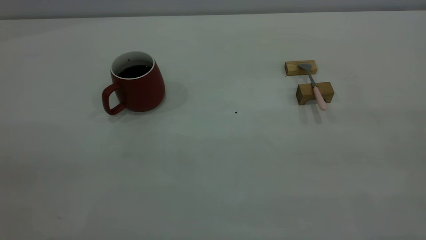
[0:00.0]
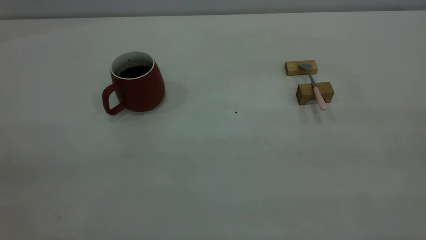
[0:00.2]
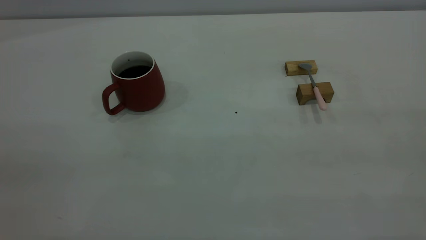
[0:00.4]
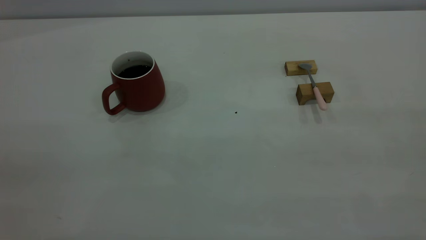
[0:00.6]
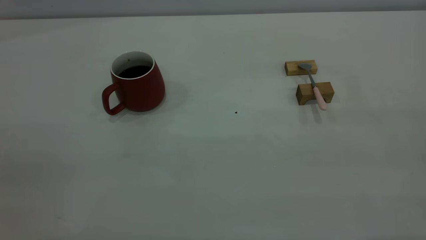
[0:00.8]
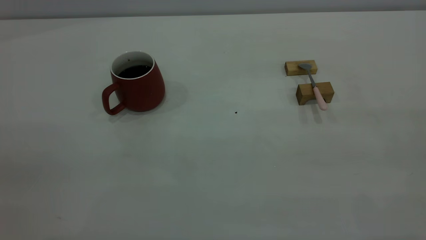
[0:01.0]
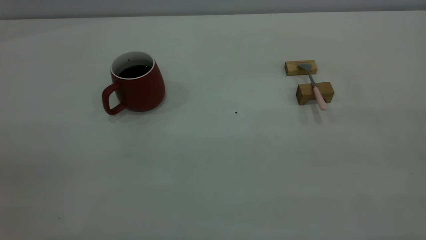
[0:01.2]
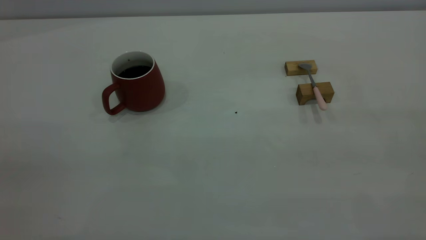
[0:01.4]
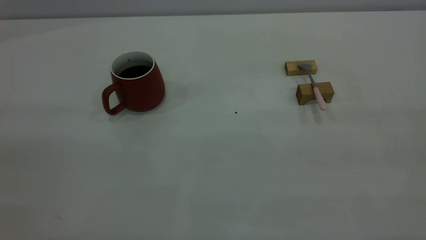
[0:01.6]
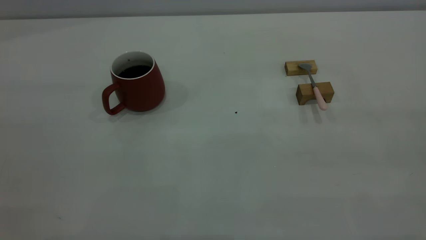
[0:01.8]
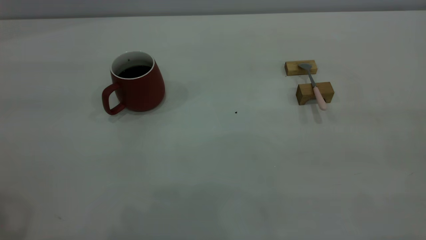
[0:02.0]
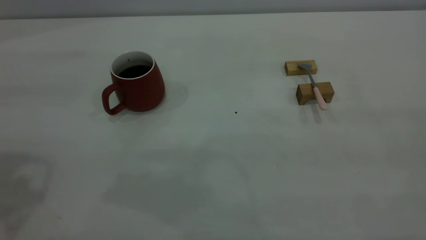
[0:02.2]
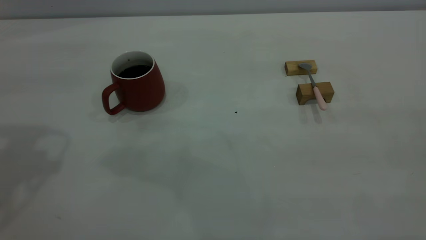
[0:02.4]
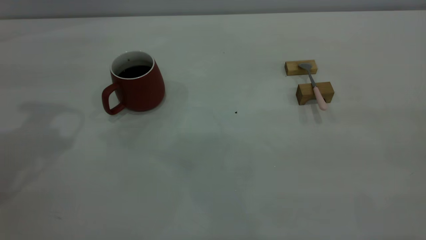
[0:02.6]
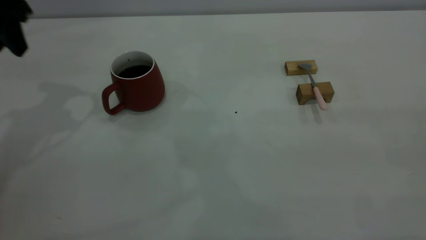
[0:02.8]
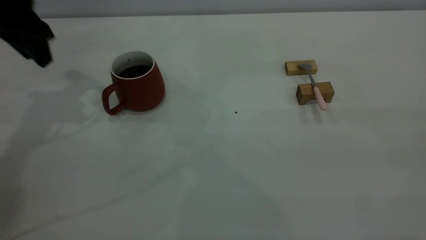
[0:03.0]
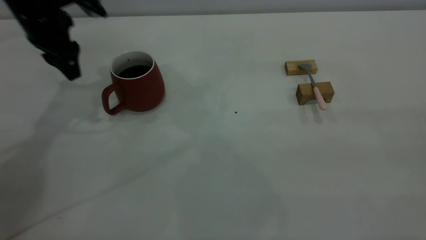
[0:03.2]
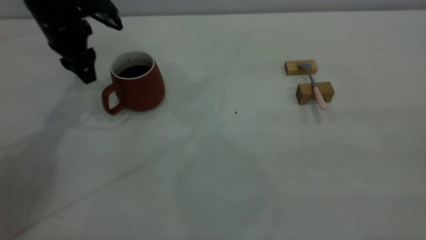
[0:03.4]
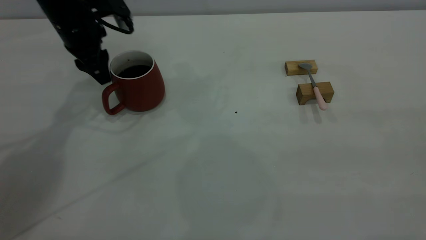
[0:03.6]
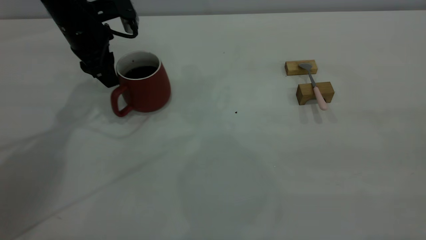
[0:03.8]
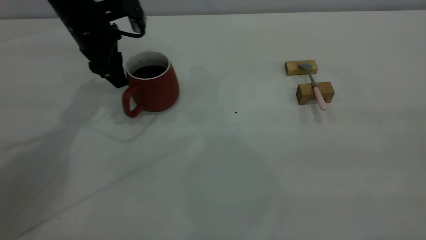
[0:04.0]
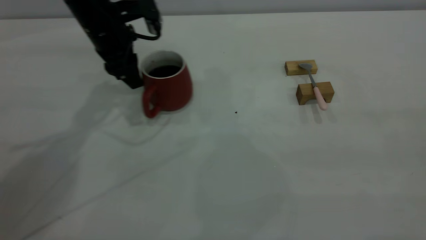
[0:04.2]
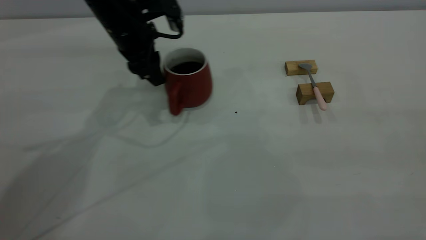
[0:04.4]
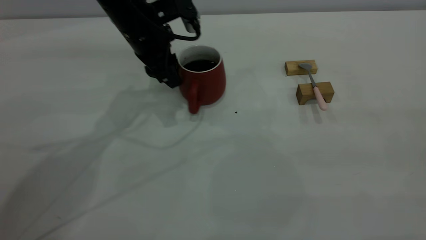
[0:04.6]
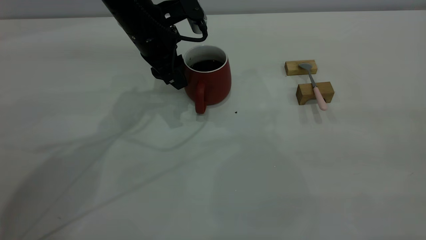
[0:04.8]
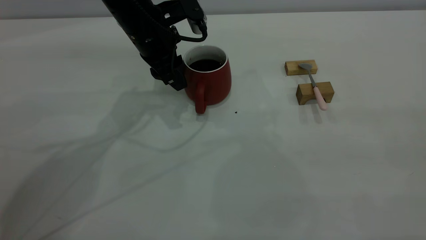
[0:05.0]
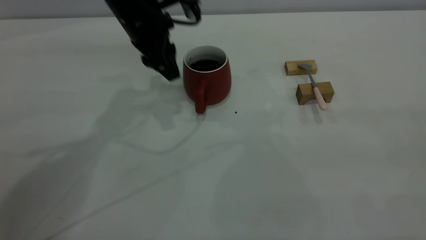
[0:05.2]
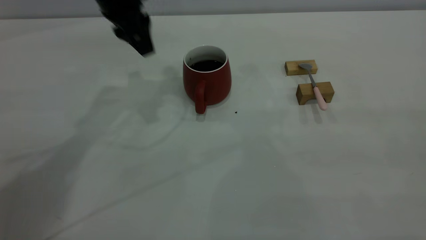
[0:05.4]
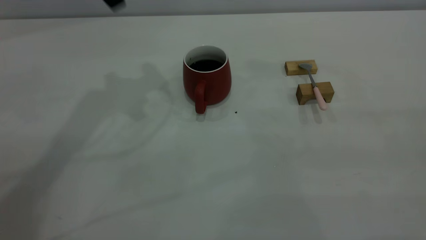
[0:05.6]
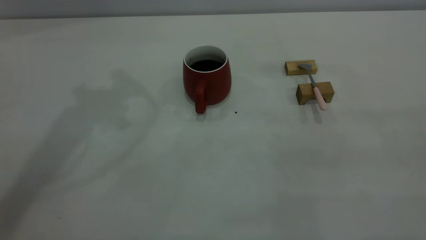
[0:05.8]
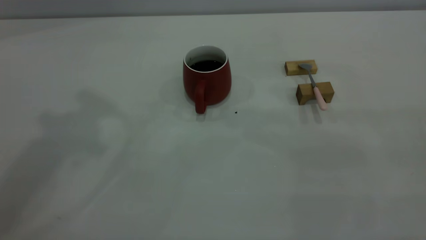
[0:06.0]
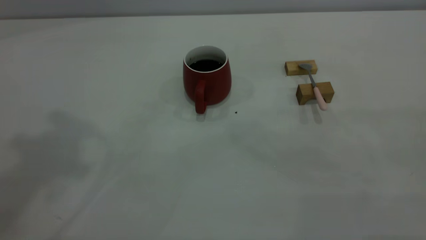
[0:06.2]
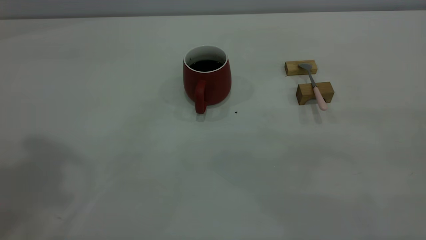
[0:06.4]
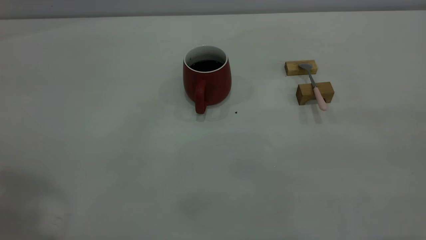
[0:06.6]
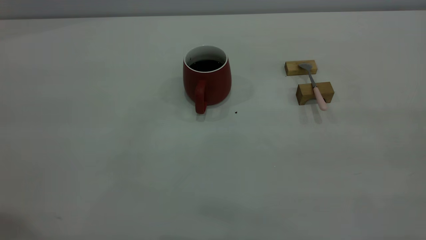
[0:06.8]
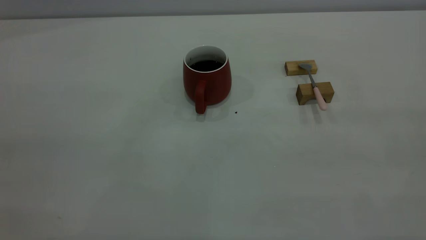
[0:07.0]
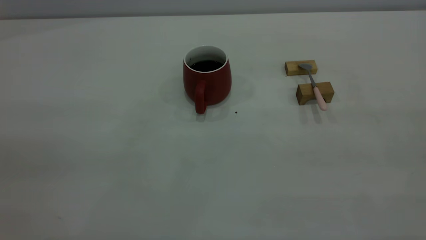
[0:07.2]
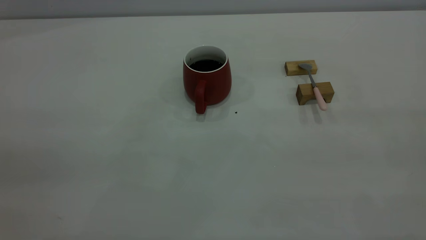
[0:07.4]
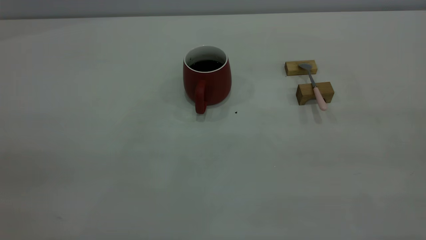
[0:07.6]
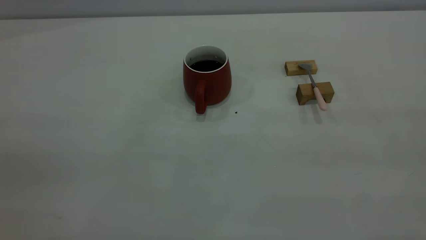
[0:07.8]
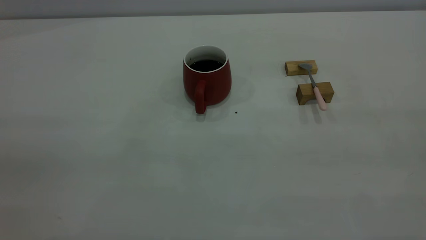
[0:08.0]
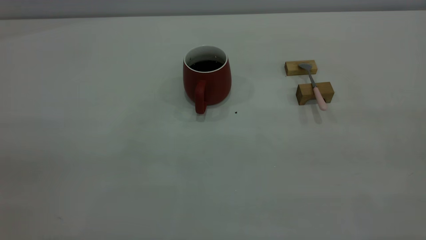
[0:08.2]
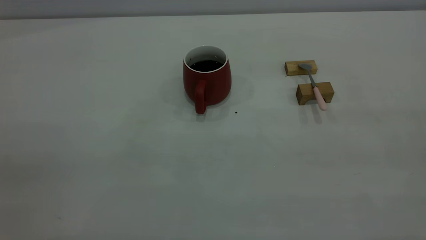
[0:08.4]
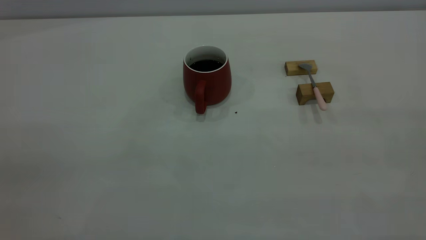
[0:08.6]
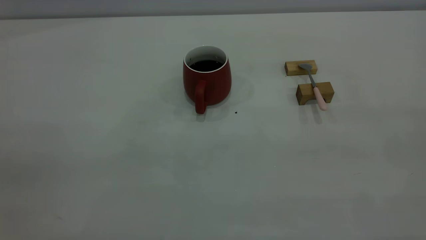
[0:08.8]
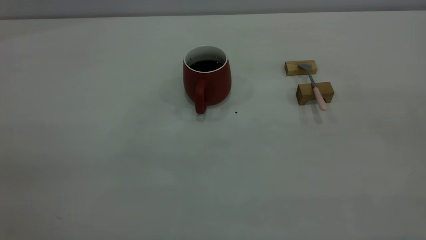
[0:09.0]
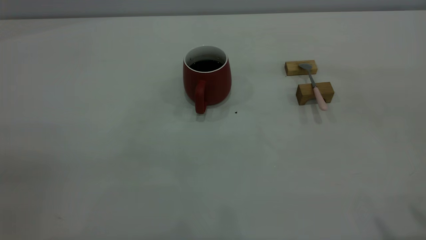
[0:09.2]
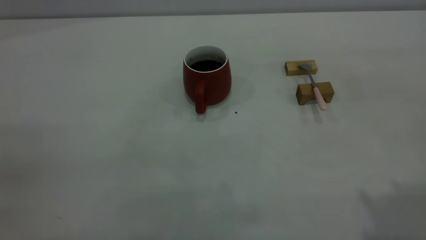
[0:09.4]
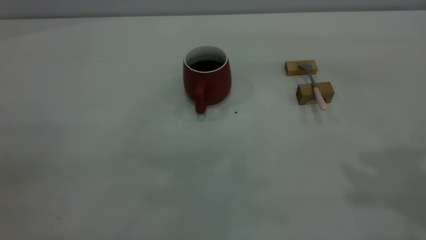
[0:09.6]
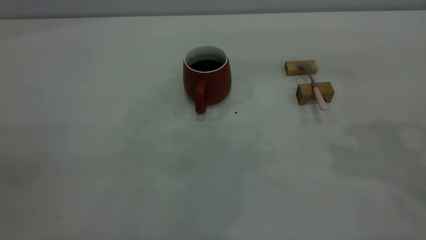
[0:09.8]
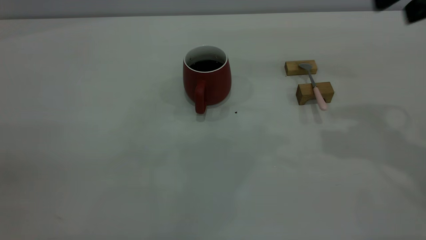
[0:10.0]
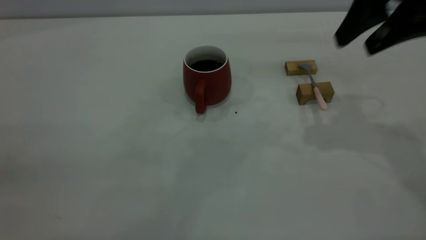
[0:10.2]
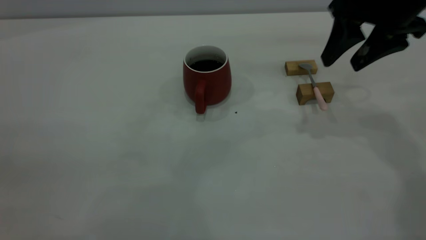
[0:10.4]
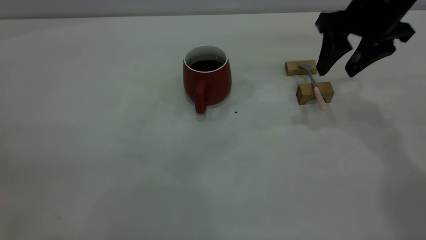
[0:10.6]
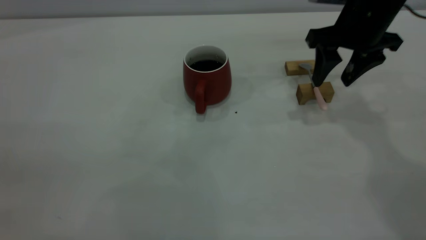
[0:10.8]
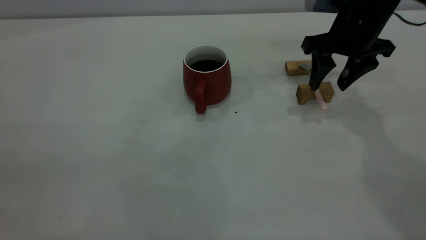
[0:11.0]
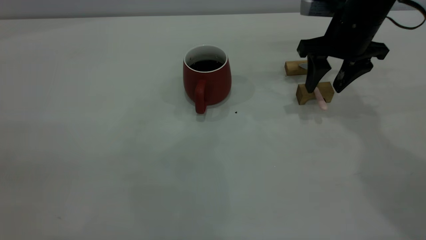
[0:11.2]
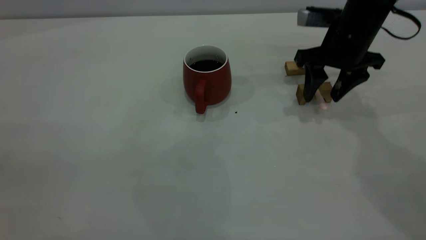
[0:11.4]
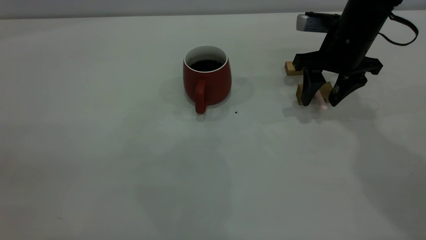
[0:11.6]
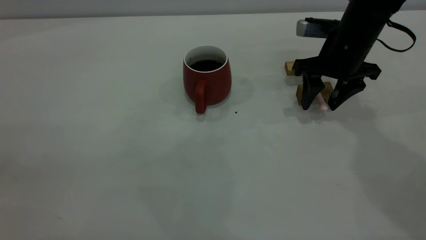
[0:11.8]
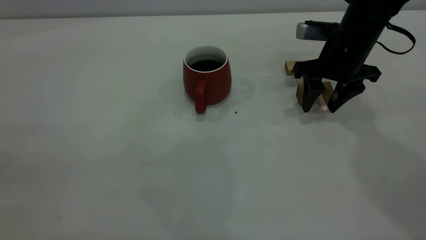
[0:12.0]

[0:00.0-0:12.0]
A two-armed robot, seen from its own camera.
Step, 0:00.0 to 0:05.2: Move the cup with coffee to the center of view.
0:01.6 to 0:03.0: The left gripper shifts about 40 cm forward and downward.
0:03.0 to 0:04.4: The left gripper goes some 15 cm to the right.
0:04.4 to 0:06.0: The left gripper goes some 35 cm upward and backward.
0:09.0 to 0:10.4: The right gripper goes some 35 cm forward and downward.
0:10.4 to 0:12.0: The right gripper goes about 10 cm downward.

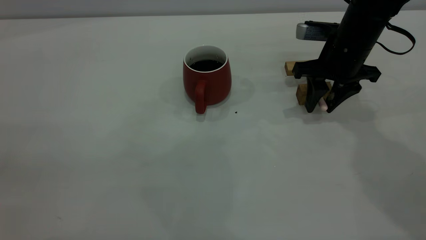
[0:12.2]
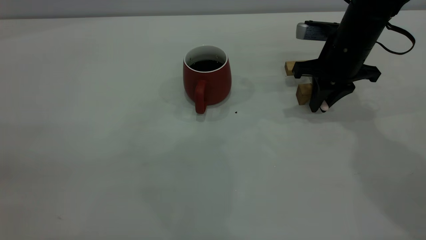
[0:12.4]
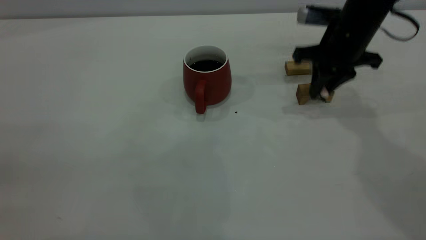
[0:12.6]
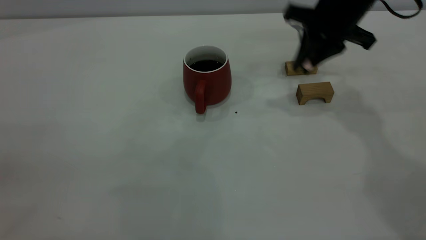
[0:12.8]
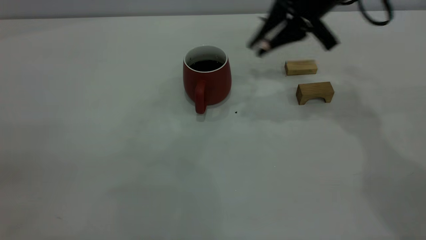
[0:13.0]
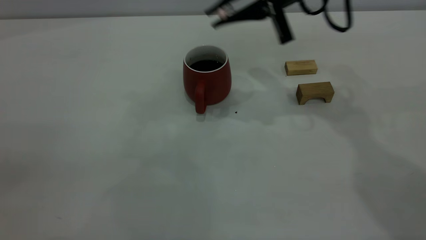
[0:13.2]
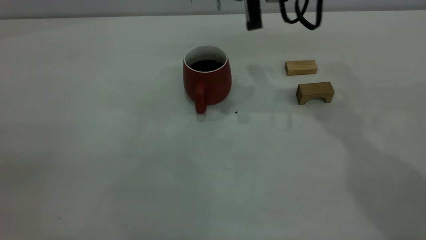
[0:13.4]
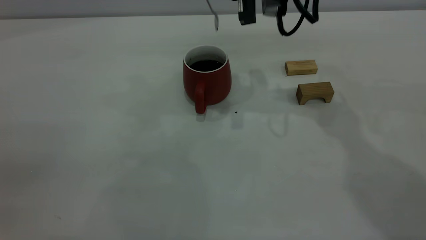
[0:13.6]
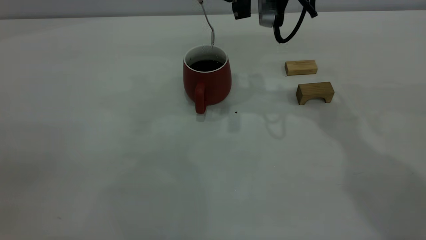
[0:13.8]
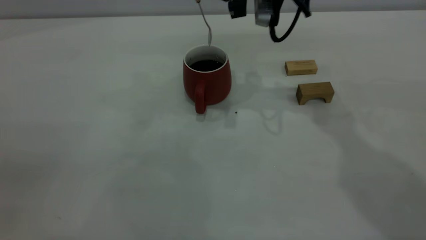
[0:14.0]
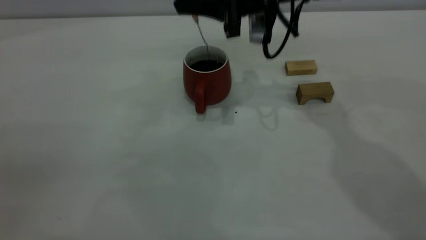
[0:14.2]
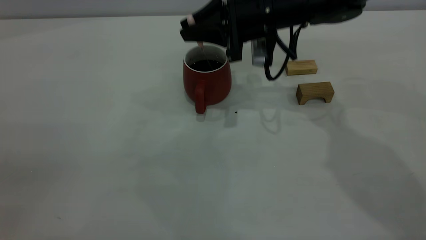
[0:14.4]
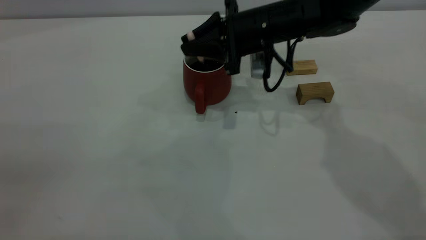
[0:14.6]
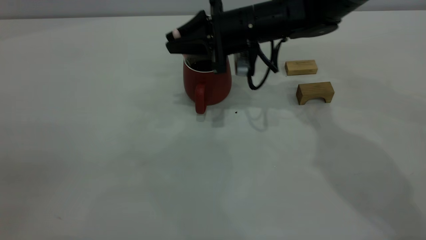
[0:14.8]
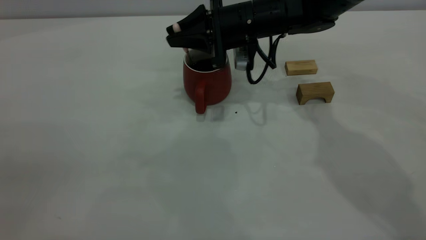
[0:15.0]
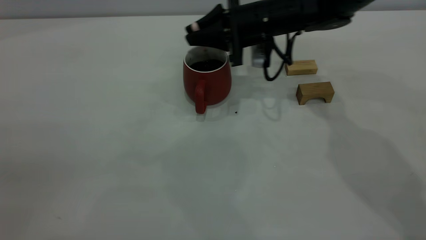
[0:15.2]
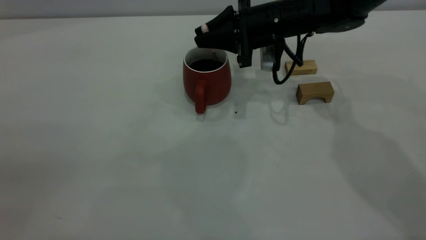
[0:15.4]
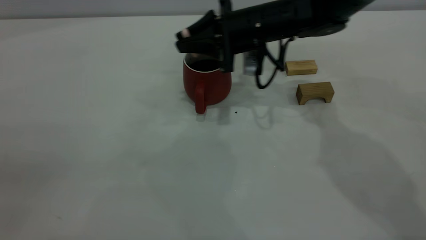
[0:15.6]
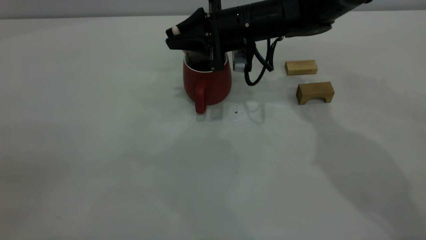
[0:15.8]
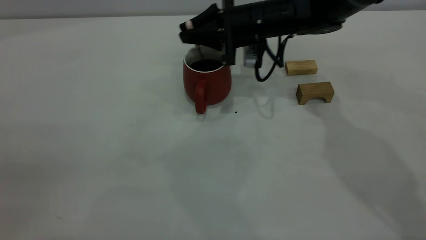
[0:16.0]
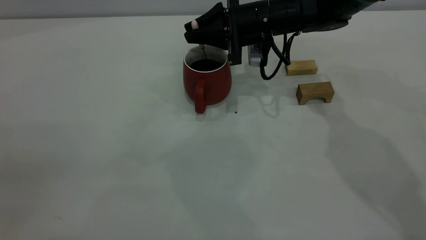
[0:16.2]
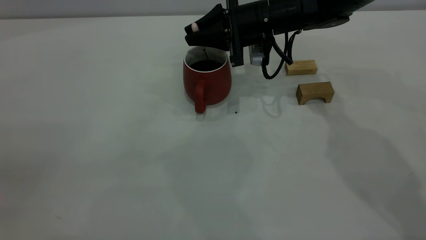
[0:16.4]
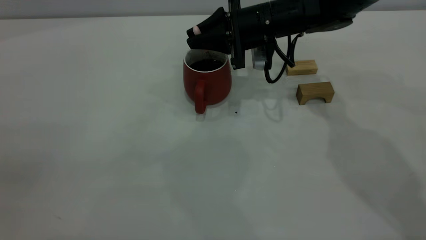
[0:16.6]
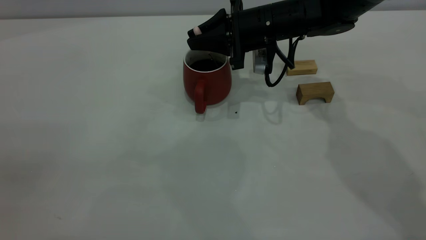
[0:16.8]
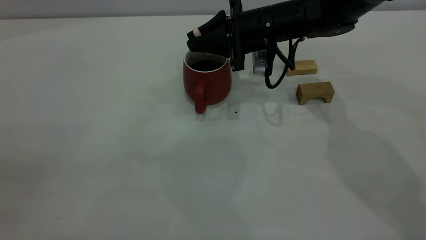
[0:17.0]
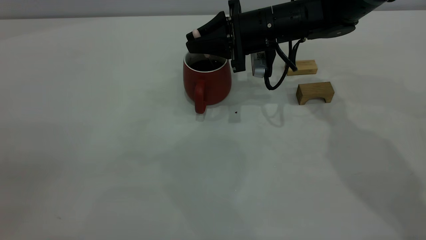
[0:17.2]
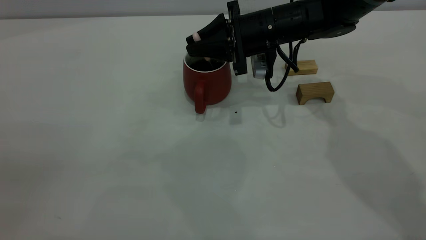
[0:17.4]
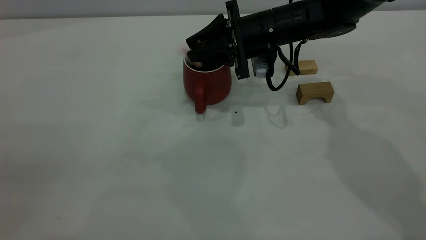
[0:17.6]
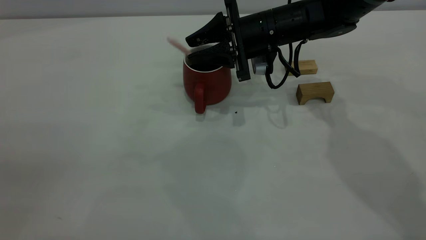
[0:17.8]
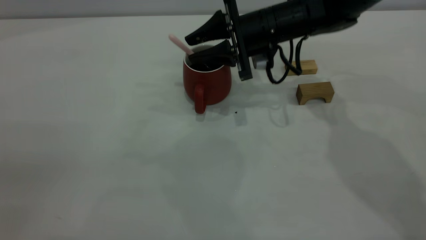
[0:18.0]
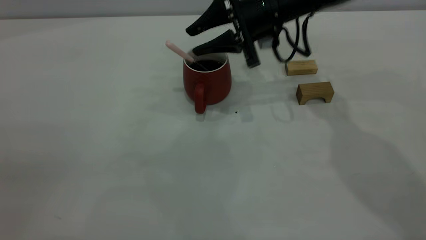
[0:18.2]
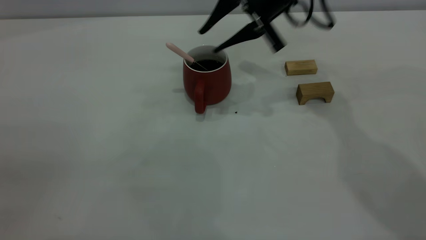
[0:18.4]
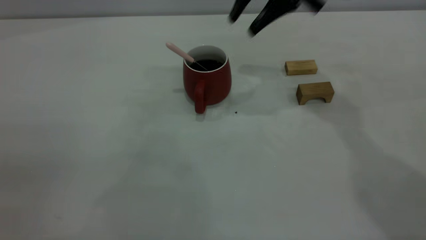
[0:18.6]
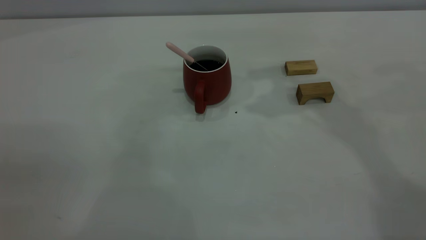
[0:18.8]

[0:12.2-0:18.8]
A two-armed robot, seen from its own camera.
Step, 0:12.8 to 0:18.4: Stir the coffee in the cup.
0:12.2 to 0:13.8: The right gripper shifts approximately 15 cm upward and to the left, and closes up.
0:13.8 to 0:15.4: The right gripper heads downward, covering some 10 cm.
0:15.4 to 0:17.2: The grippers stay close to where they were, moving slightly.
0:17.2 to 0:18.8: The right gripper goes approximately 25 cm upward, and opens.
